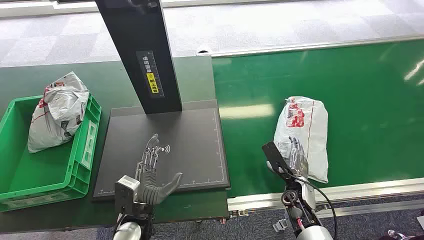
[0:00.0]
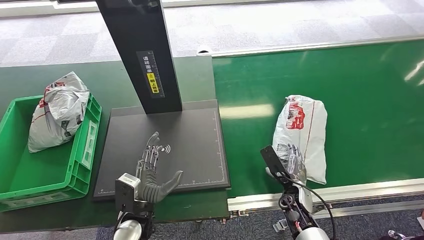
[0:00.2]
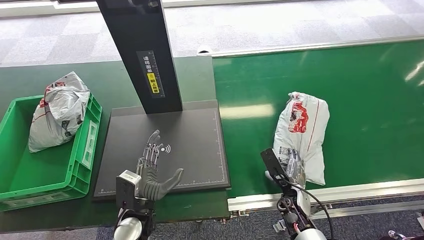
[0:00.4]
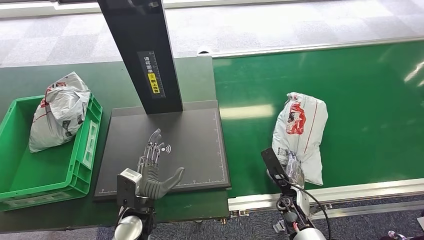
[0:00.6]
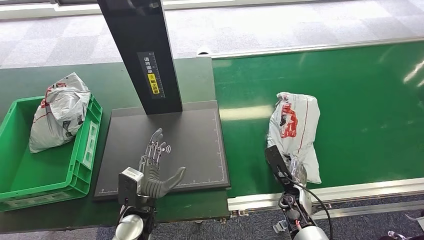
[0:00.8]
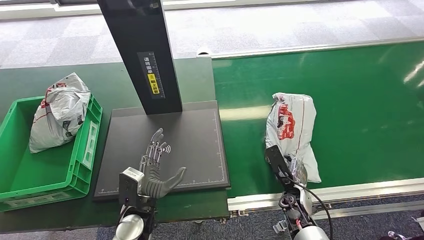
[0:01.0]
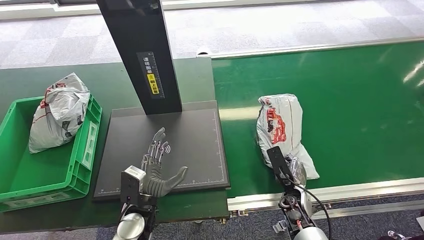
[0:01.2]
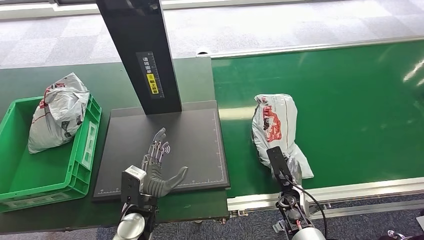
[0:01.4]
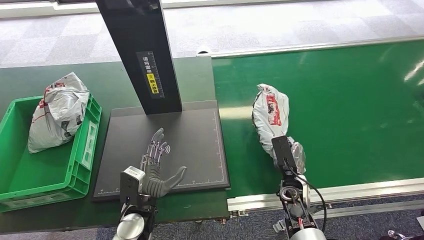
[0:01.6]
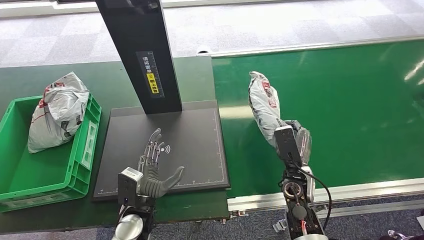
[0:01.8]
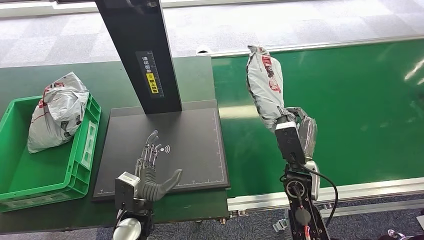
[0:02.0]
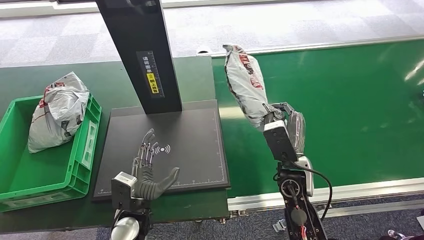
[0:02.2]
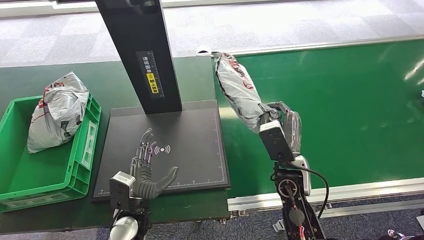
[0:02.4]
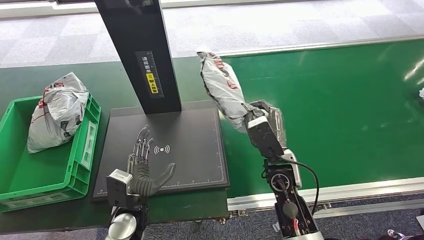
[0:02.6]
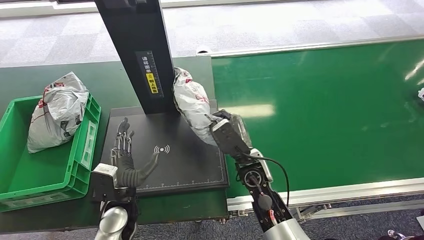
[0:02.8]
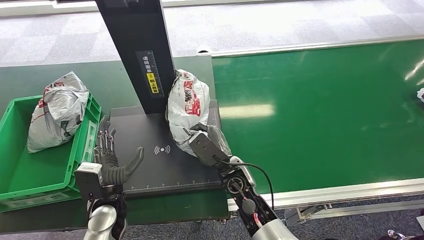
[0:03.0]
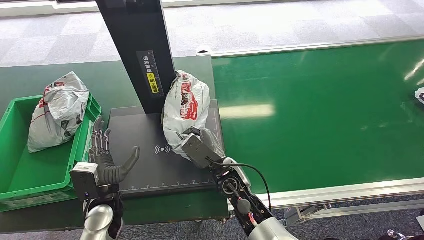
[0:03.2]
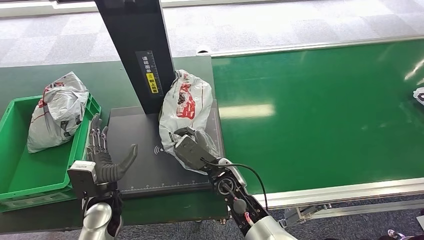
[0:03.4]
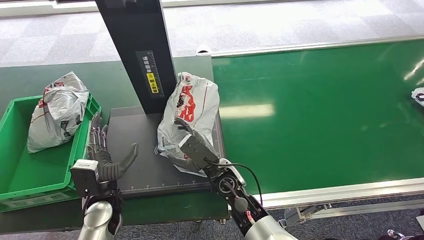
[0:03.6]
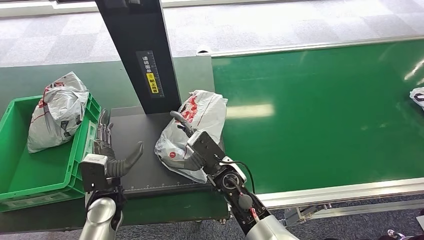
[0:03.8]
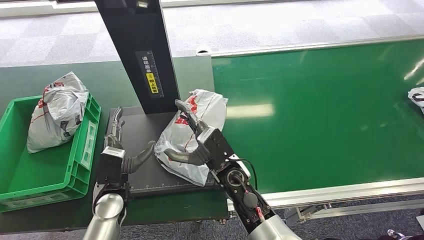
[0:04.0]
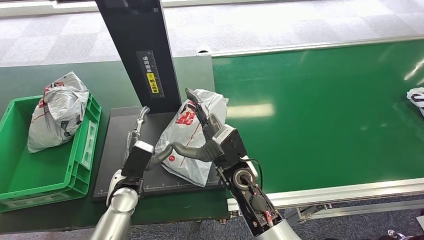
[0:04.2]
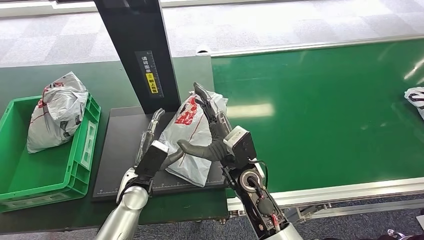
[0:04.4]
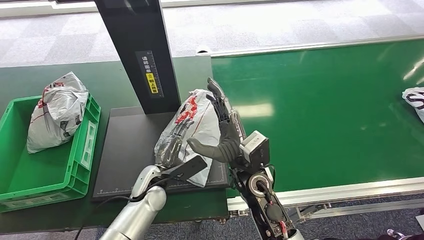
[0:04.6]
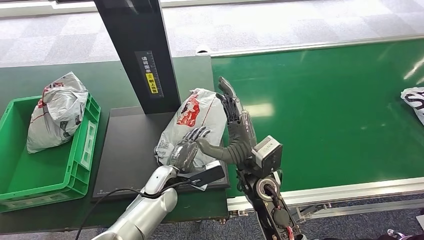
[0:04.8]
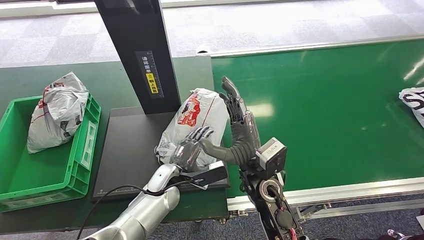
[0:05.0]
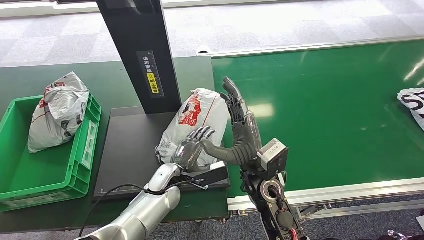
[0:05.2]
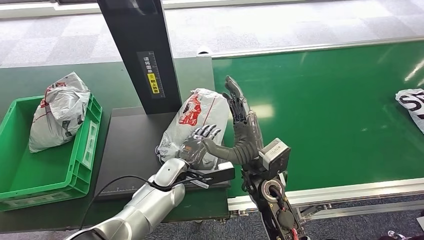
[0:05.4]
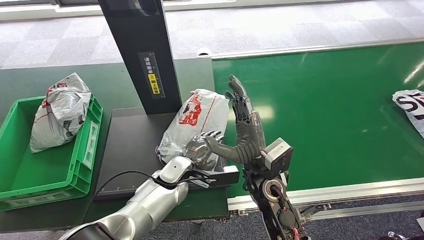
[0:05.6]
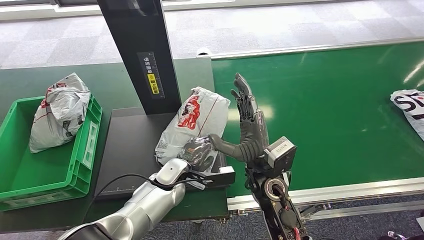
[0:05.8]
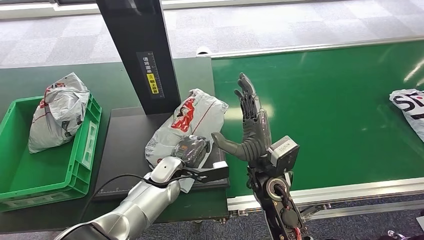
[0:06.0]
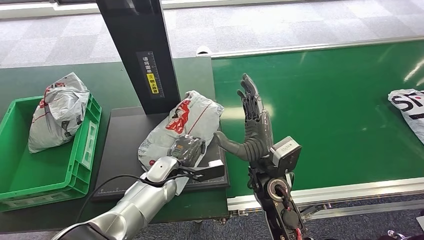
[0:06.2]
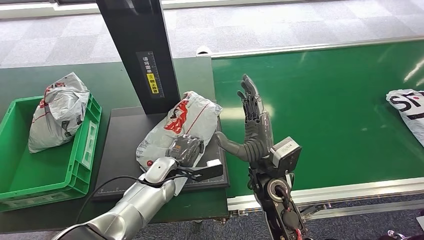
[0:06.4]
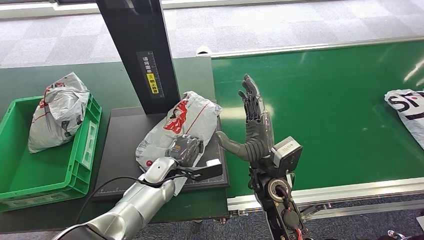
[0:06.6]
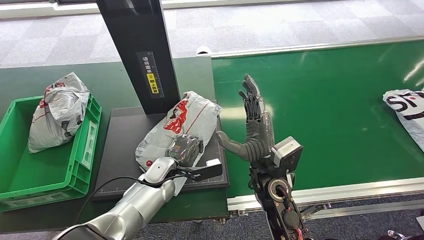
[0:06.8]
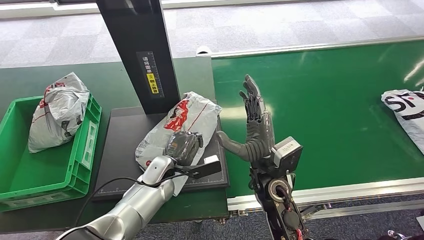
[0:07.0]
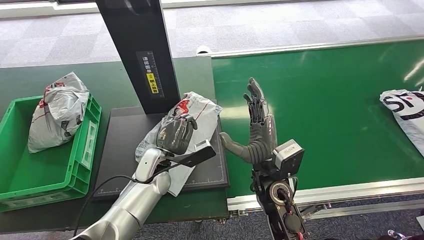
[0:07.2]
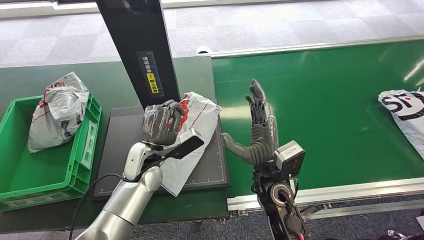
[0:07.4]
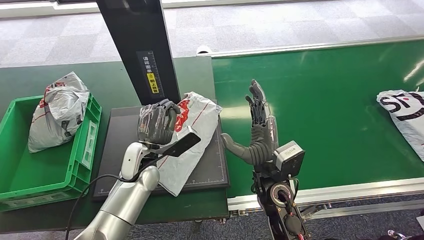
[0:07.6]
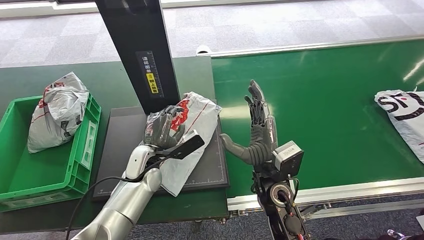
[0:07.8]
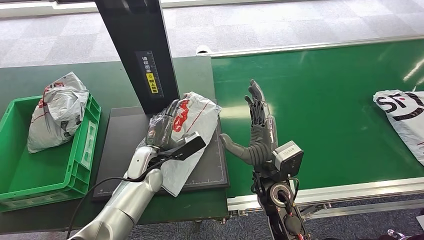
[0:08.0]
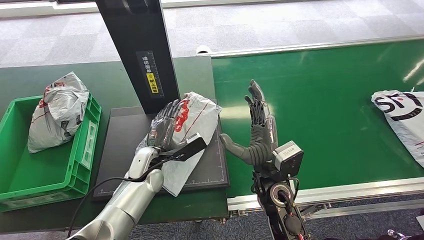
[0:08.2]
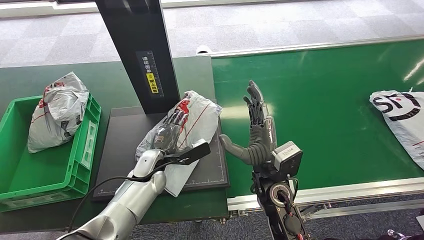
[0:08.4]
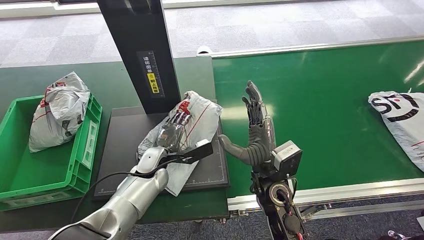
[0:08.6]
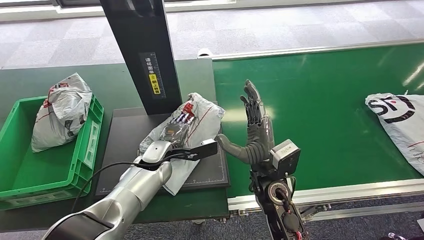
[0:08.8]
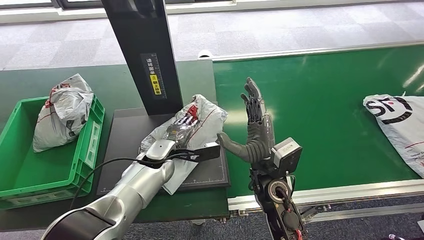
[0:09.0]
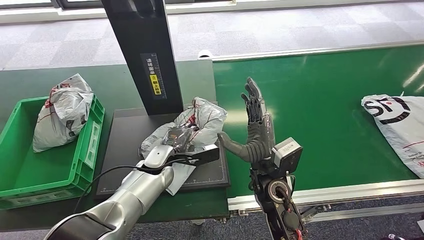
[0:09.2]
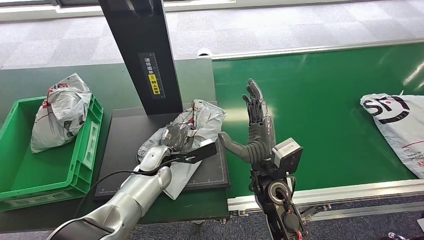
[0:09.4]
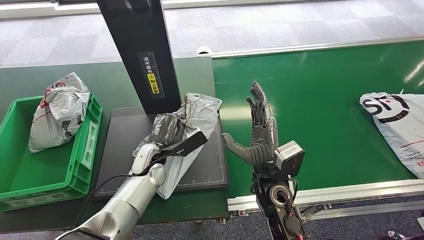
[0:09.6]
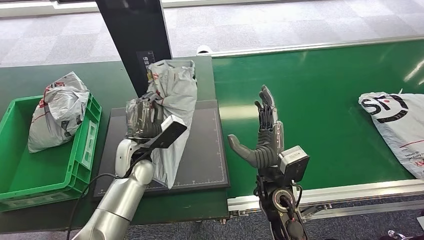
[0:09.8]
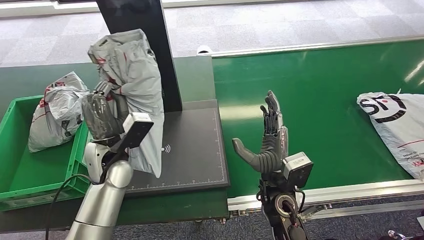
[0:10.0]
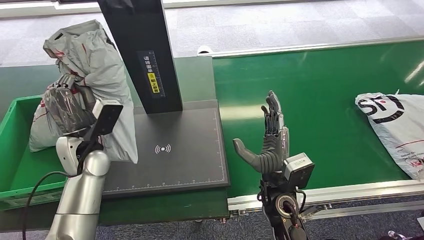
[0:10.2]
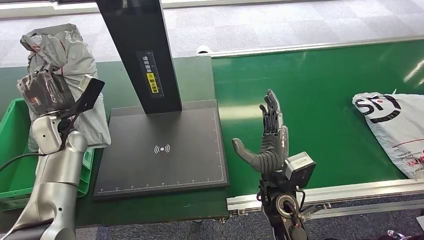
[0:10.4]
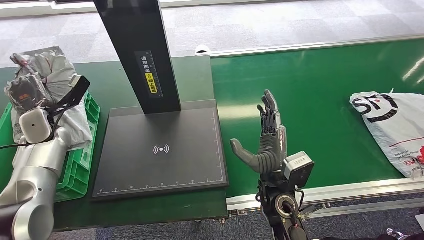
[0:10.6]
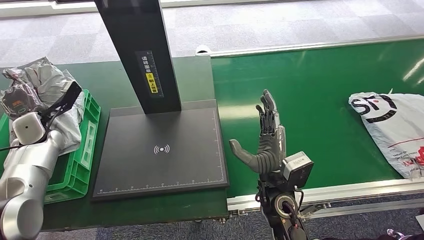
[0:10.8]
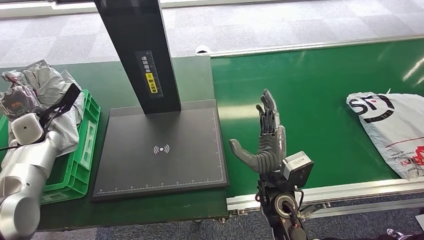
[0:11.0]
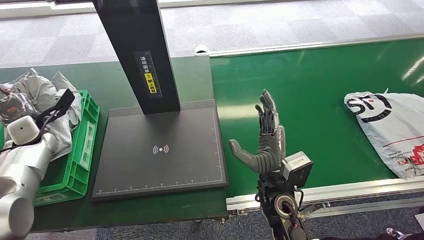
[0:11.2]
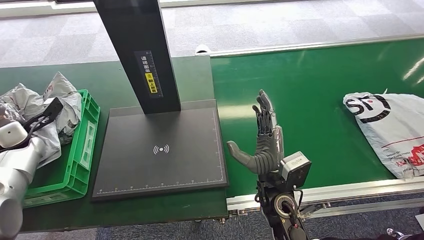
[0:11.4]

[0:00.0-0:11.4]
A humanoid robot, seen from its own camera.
Step, 0:00.0 to 0:02.2: Pick up the package from the conveyor belt.
Step, 0:03.0 to 0:04.8: Place the package onto the inbound machine.
Step, 0:05.4 to 0:10.2: Pick up the package from the inbound machine.
0:02.8 to 0:04.2: The right hand travels to the left by approximately 5 cm.

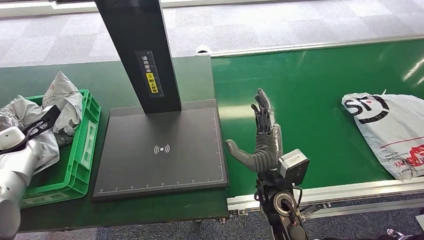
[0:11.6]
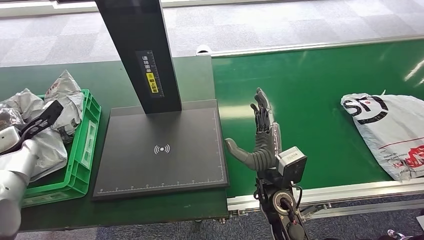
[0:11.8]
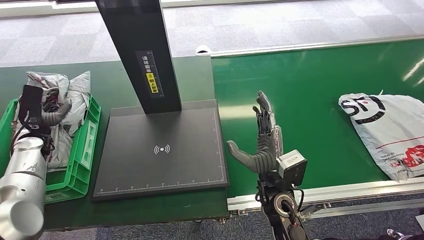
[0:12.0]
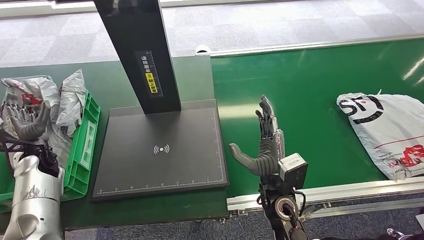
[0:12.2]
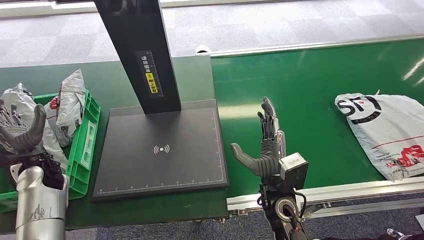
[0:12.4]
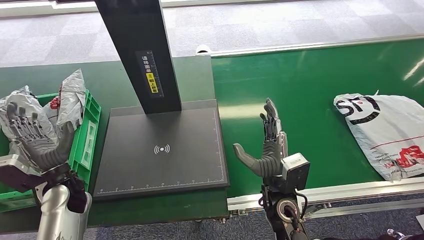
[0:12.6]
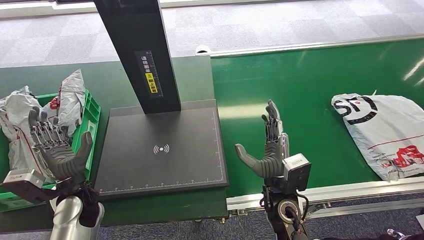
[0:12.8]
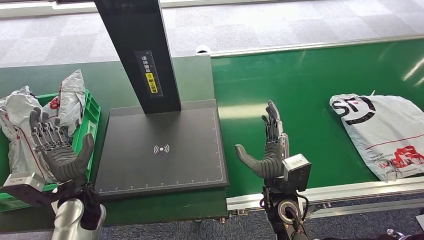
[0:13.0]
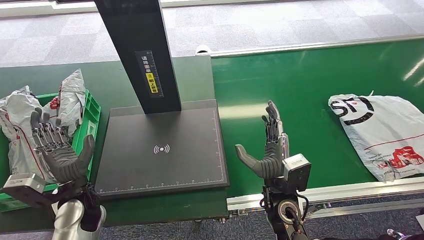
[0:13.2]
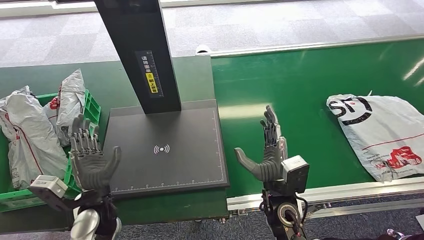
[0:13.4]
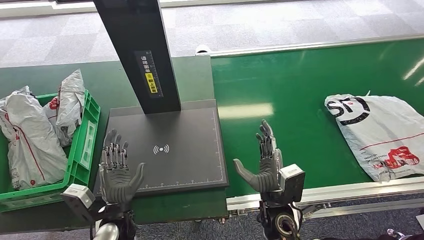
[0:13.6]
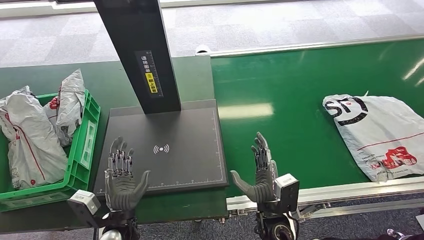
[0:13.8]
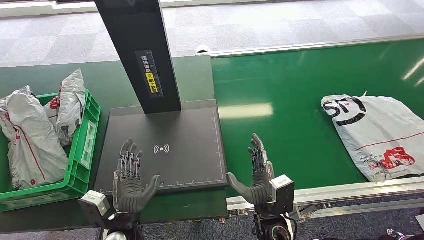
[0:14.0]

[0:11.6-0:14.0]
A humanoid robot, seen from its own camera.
Step, 0:11.6 to 0:14.0: Place the package into the parcel locker.
0:11.6 to 0:12.8: The left hand goes some 30 cm to the right and backward.
0:12.8 to 0:14.0: The right hand moves downward and backward, approximately 10 cm, while the left hand is displaced to the right, backward and downward by roughly 15 cm.
